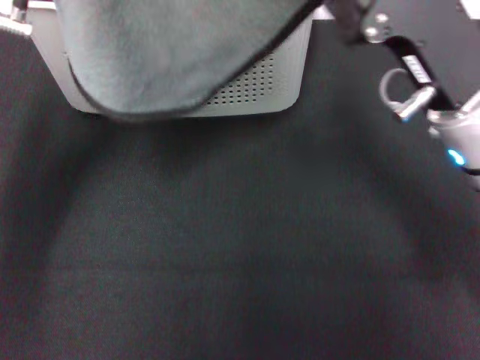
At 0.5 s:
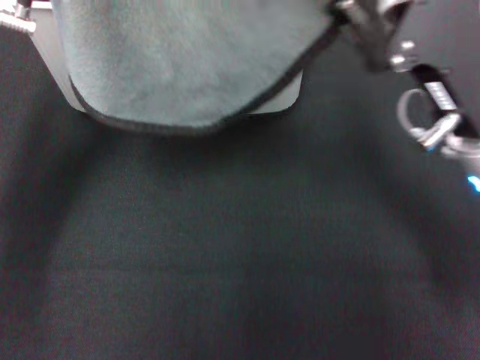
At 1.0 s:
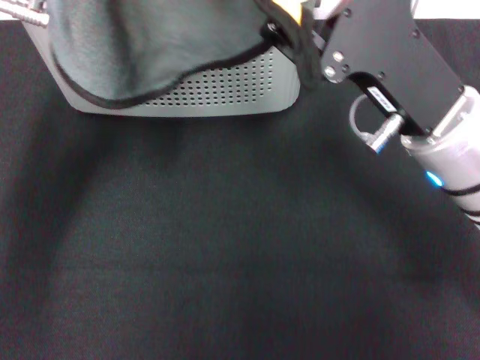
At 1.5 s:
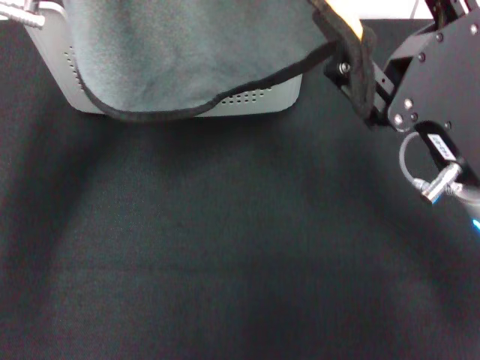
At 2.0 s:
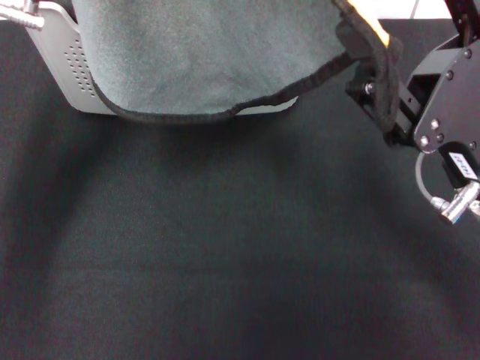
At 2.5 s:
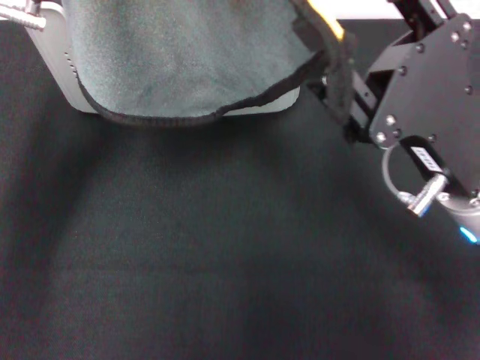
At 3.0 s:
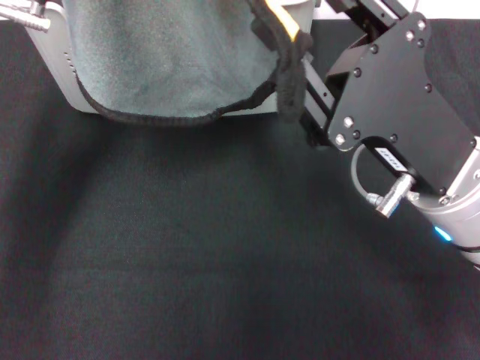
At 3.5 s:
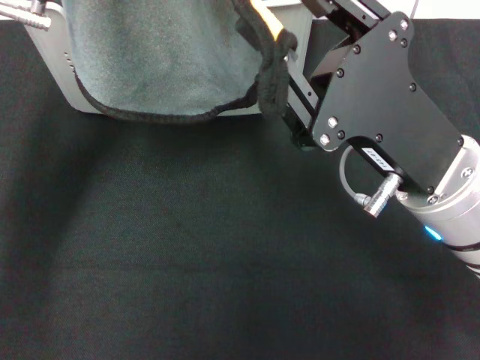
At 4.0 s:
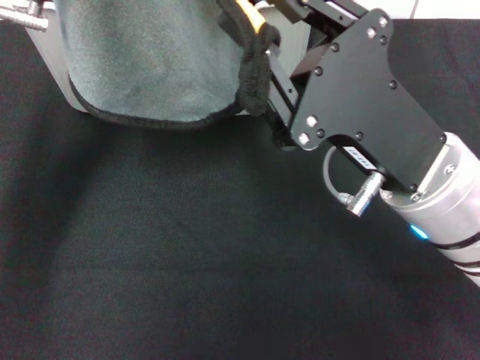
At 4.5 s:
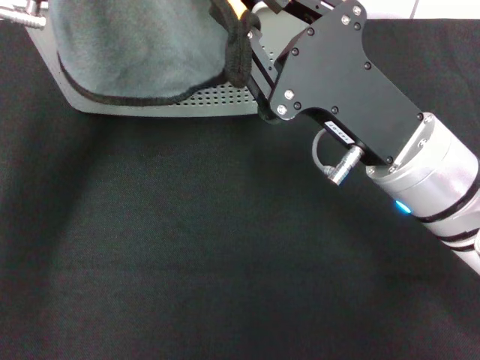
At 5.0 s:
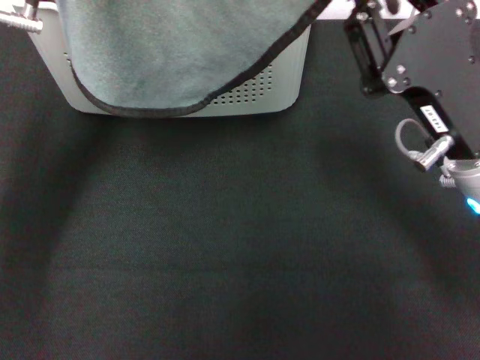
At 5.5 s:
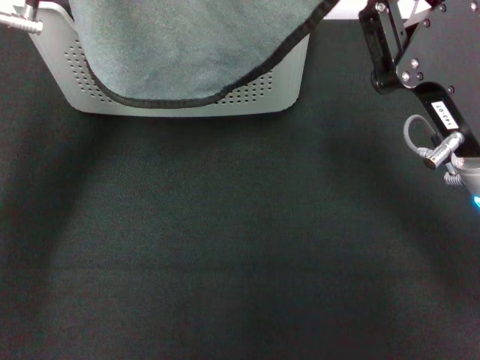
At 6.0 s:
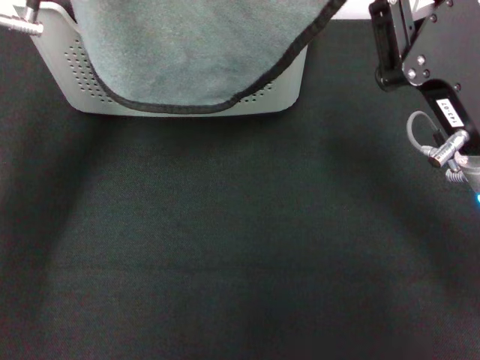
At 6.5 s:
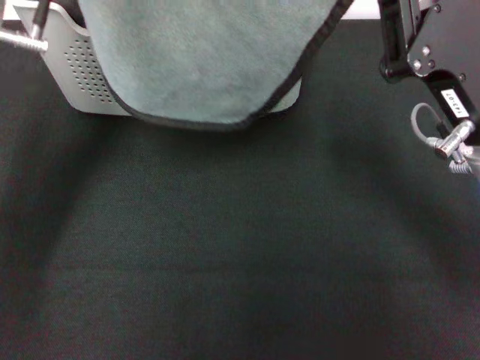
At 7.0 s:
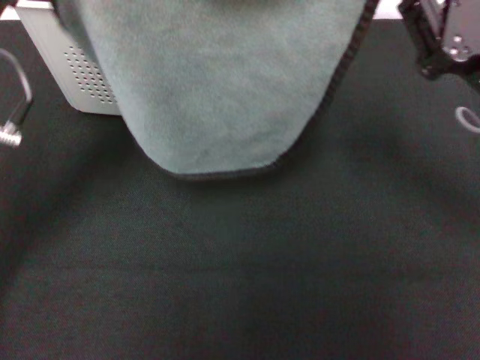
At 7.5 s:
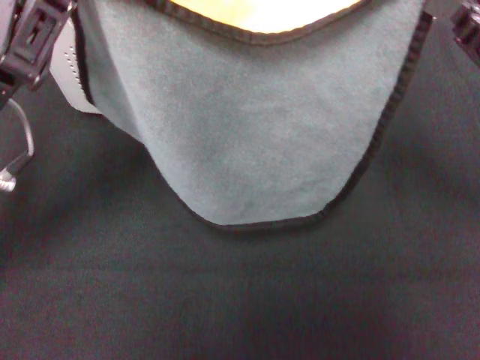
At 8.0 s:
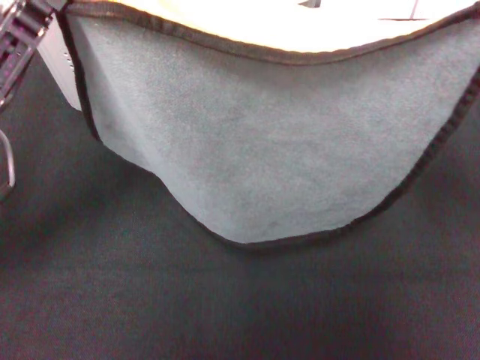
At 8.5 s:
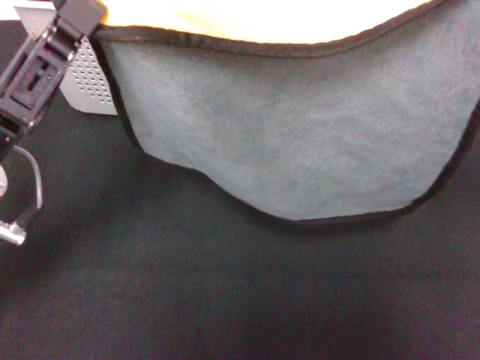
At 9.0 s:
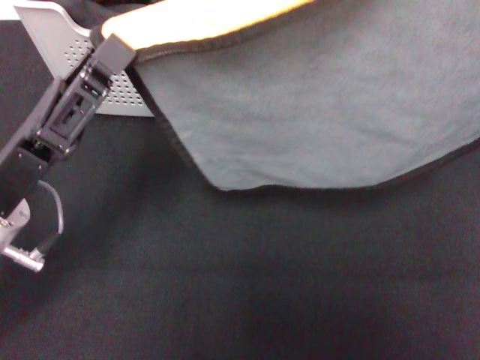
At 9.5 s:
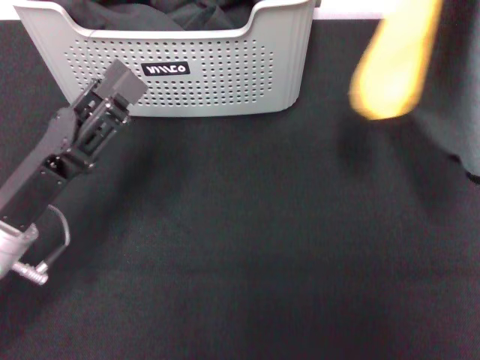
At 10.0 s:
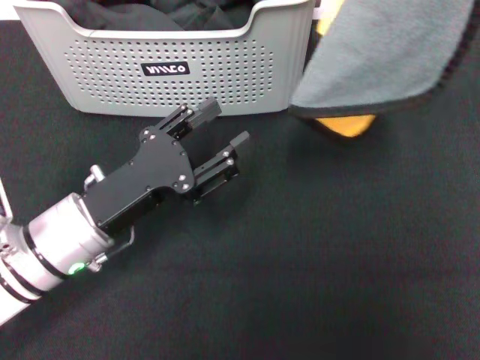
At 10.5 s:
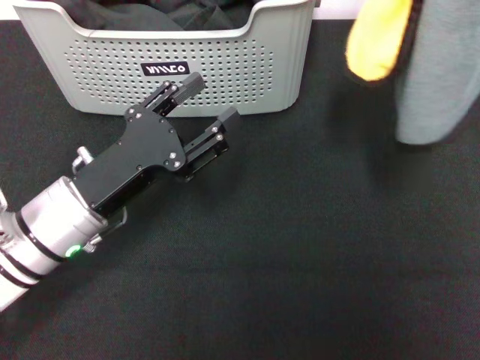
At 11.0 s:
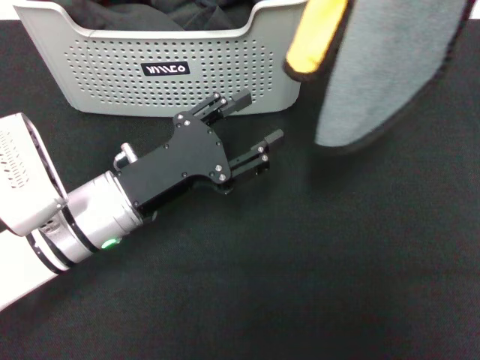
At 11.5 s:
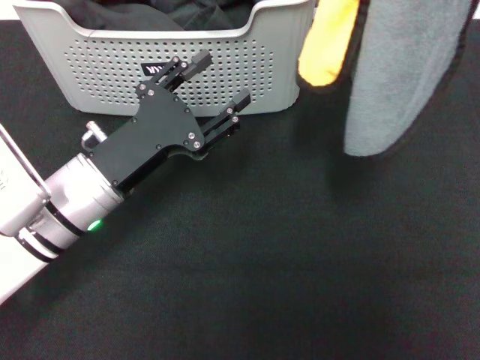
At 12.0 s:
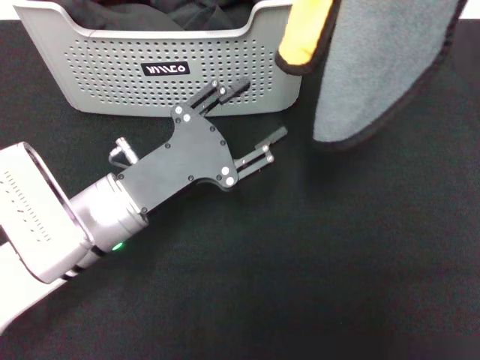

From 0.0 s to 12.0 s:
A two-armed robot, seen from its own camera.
Task of the whole recording: pick up the towel from the storage box and lay it flat on the black tablecloth.
Step, from 0.0 s to 6.5 s: Spread the towel flat with the left gripper.
From 0.0 s to 2.0 s: The right gripper shifts some 5 cm backward.
From 2.0 s to 4.0 s: The right gripper goes about 5 cm to the left, and closes.
From 4.0 s to 6.0 s: The right gripper moves to the right, roughly 5 cm.
From 6.0 s to 8.0 s: The right gripper is displaced to the right and upward by some 15 cm. The left gripper moves backward and downward, roughly 10 cm.
From 8.0 s to 10.0 s: The right gripper is displaced upward by roughly 20 cm, while the left gripper travels downward and to the right by about 10 cm, and opens up.

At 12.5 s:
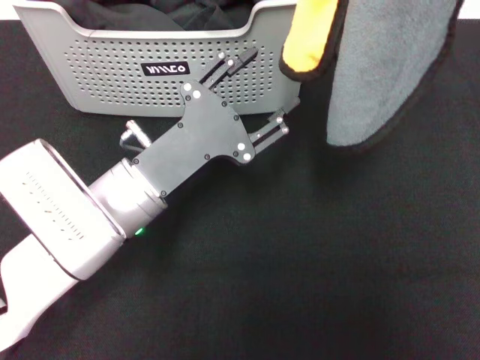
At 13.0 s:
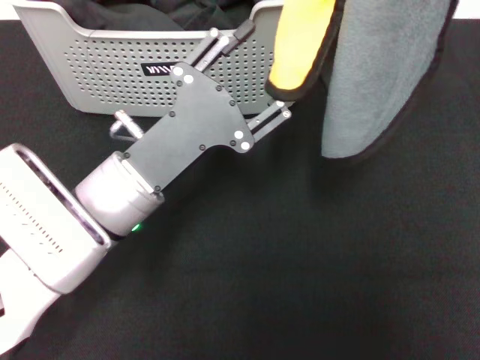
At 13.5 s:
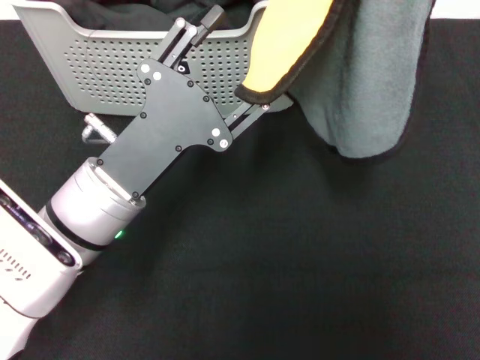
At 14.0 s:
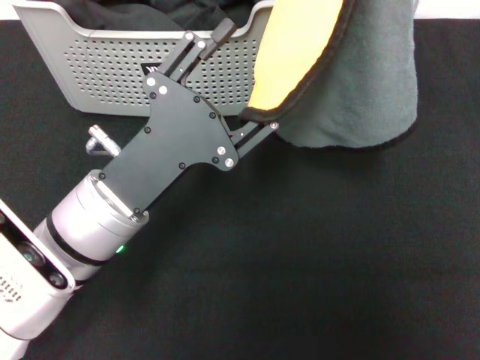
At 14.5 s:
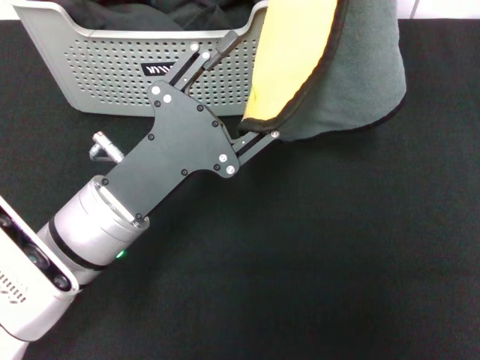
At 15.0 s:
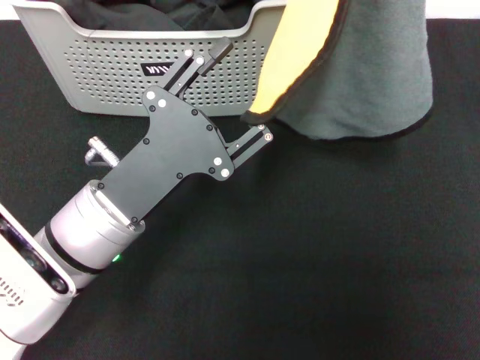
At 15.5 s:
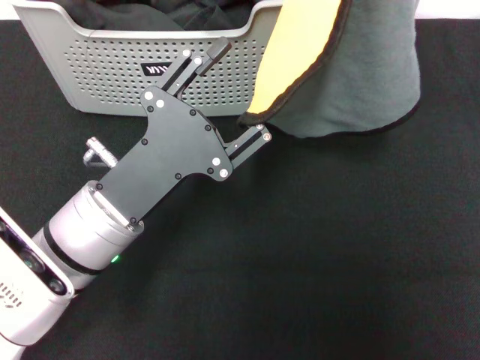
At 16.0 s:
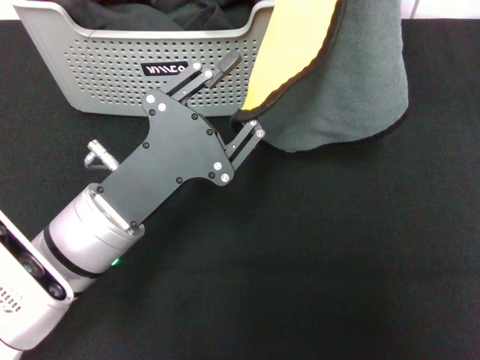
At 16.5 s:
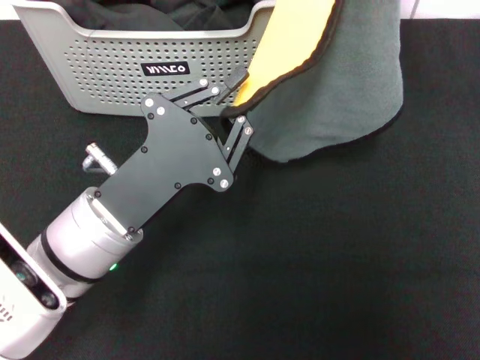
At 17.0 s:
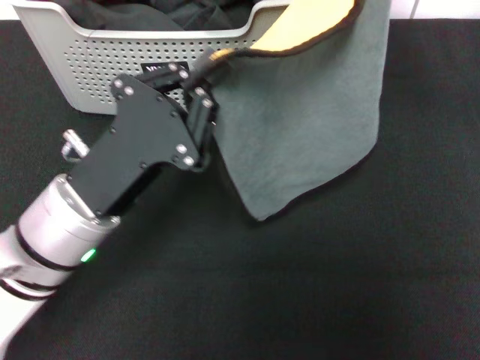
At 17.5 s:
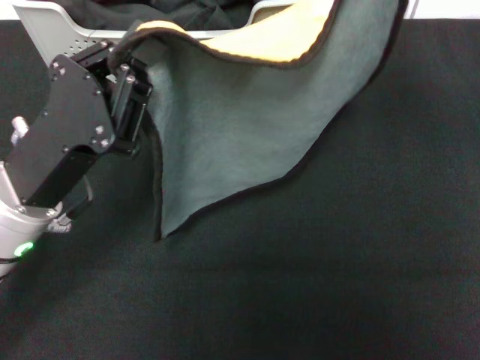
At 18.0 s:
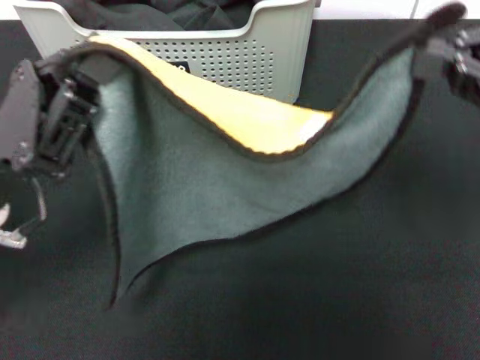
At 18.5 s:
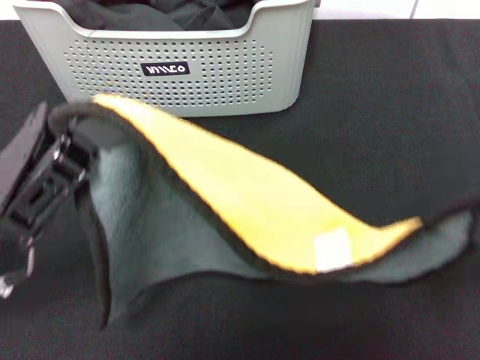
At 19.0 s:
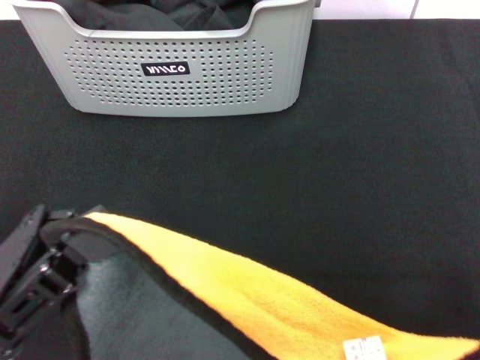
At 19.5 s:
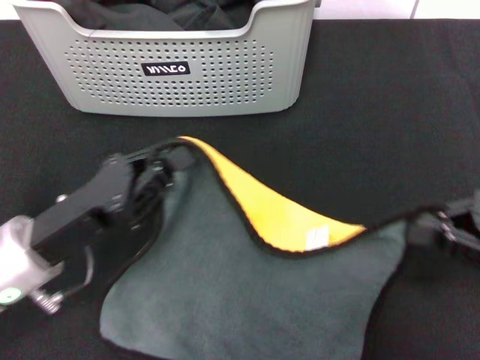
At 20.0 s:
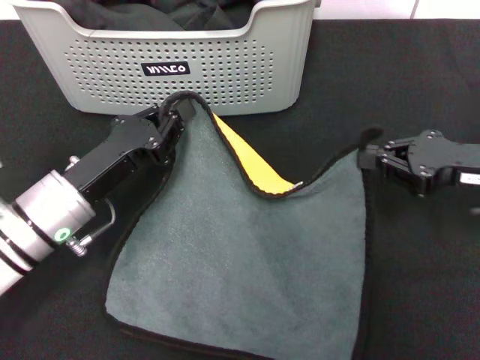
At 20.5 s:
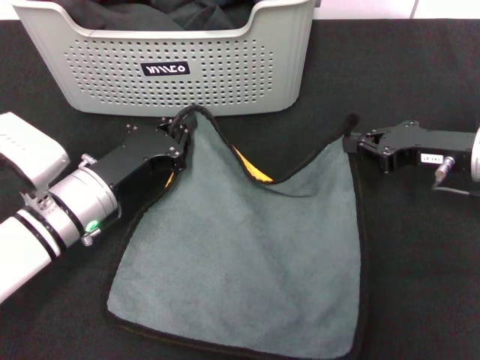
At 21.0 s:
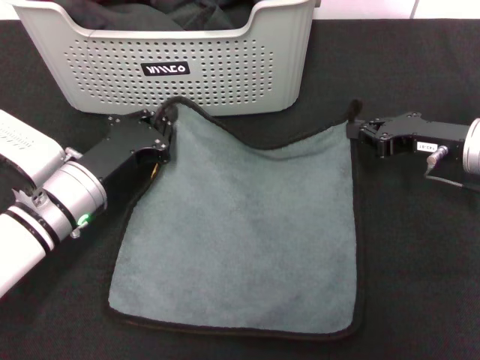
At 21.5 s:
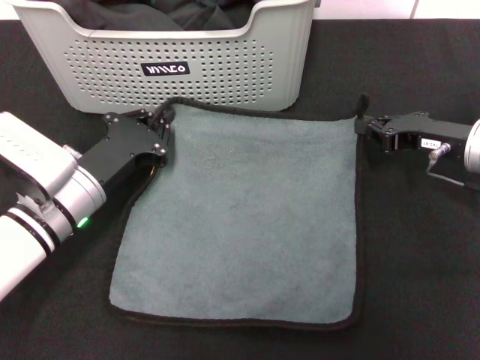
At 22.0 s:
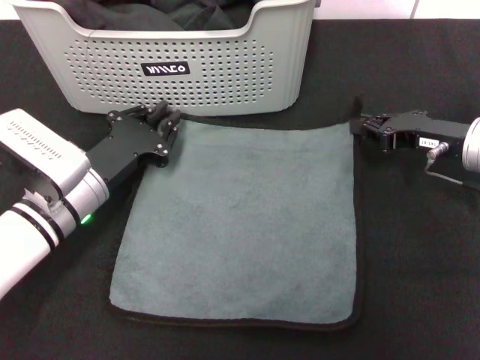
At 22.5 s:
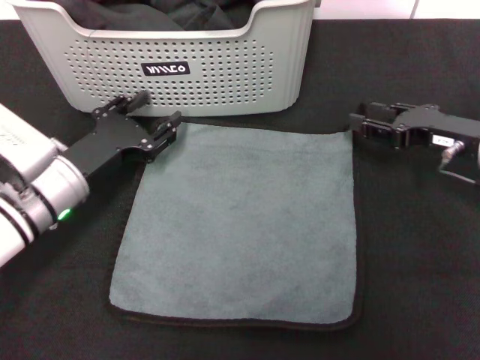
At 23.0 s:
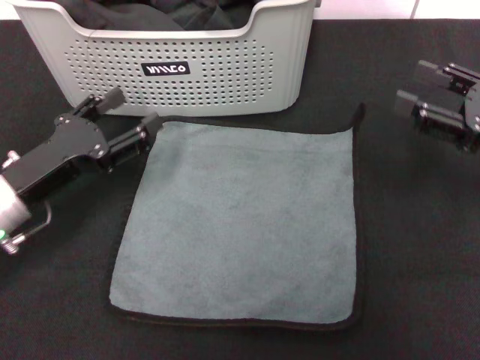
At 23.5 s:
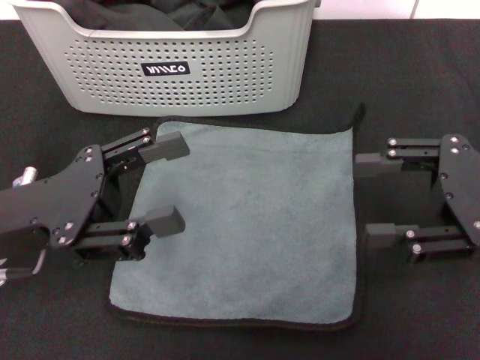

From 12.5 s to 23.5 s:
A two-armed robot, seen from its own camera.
Task of the whole recording: pick up the towel from the storage box and lay it flat on the black tablecloth.
Step, from 12.5 s to 22.0 s: Spread the towel flat with the right gripper.
From 12.5 s to 14.5 s: The right gripper travels downward by about 5 cm.
From 14.5 s to 16.0 s: There are only small adjustments of the grippers.
From 16.0 s to 18.0 s: The left gripper moves to the left, roughly 10 cm, and closes; the right gripper shifts approximately 15 cm backward and downward.
From 18.0 s to 20.0 s: The right gripper moves downward, approximately 15 cm, and moves about 10 cm backward and comes back; the left gripper shifts approximately 5 cm downward.
From 20.0 s to 21.5 s: The right gripper heads forward, covering approximately 5 cm.
From 21.5 s to 23.5 s: The right gripper heads backward and upward, covering about 15 cm, and opens. Meanwhile the left gripper travels upward and backward by some 10 cm, and opens its fingers.
